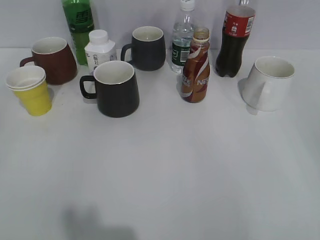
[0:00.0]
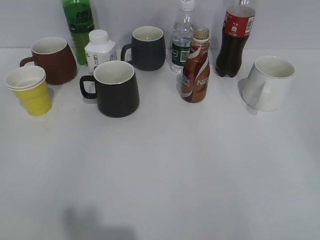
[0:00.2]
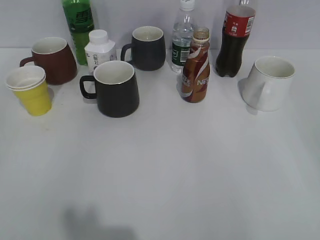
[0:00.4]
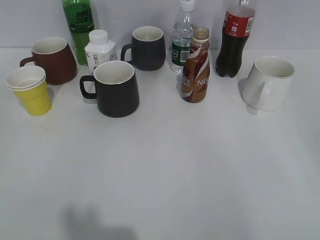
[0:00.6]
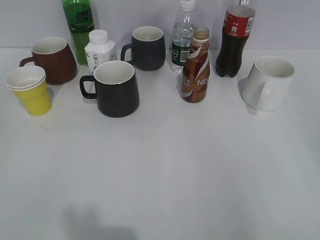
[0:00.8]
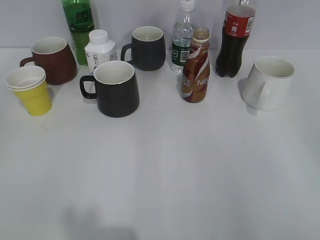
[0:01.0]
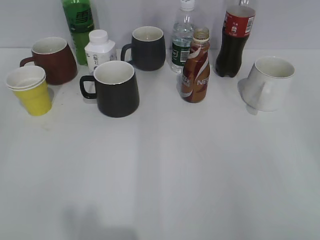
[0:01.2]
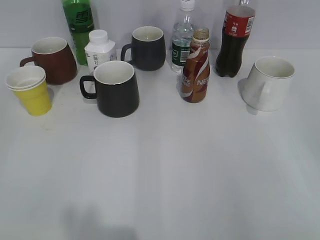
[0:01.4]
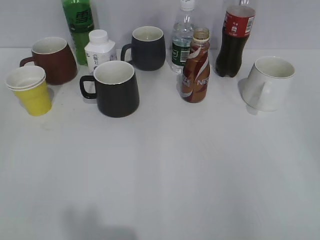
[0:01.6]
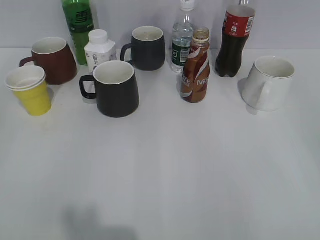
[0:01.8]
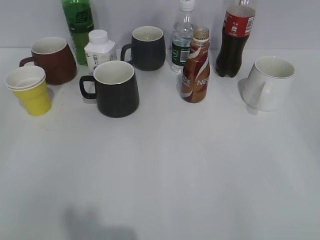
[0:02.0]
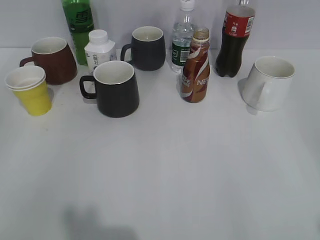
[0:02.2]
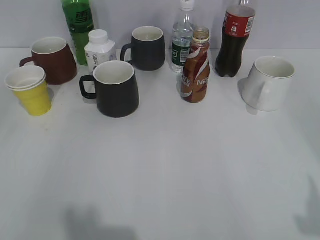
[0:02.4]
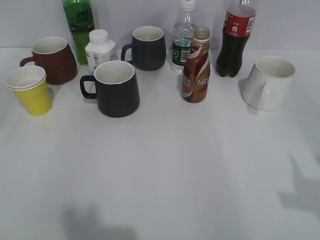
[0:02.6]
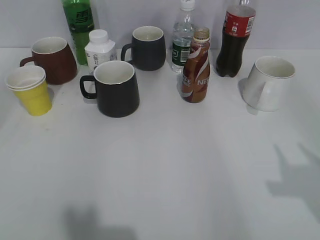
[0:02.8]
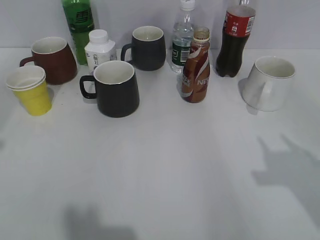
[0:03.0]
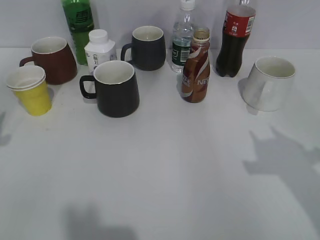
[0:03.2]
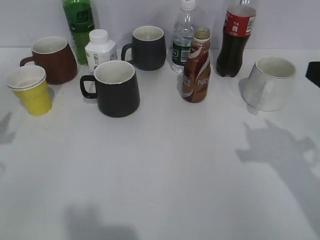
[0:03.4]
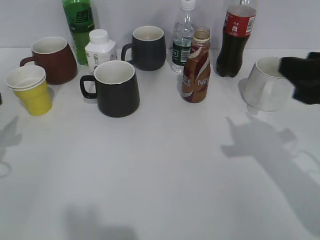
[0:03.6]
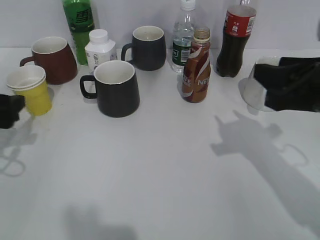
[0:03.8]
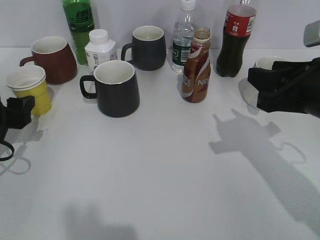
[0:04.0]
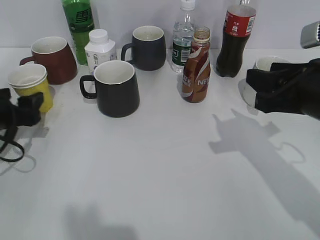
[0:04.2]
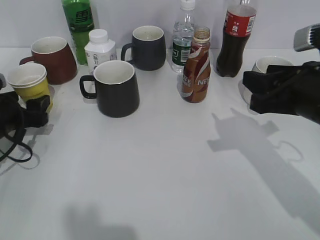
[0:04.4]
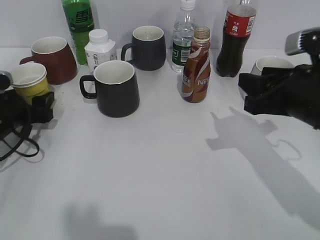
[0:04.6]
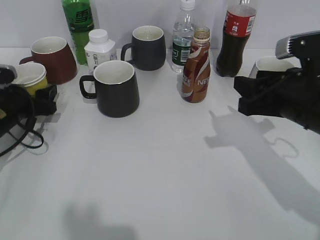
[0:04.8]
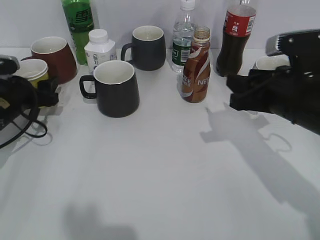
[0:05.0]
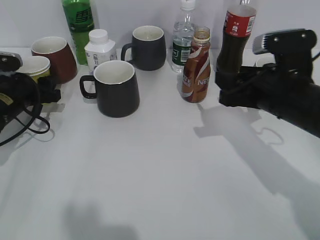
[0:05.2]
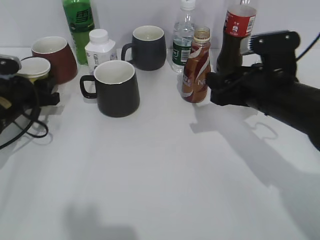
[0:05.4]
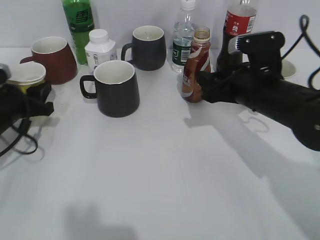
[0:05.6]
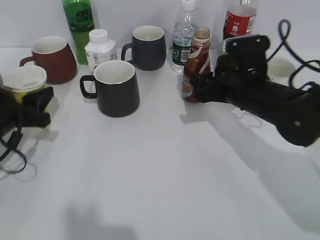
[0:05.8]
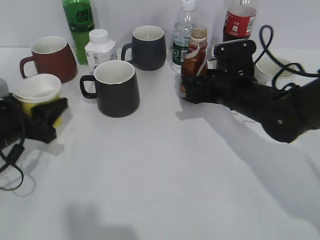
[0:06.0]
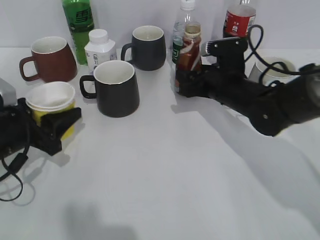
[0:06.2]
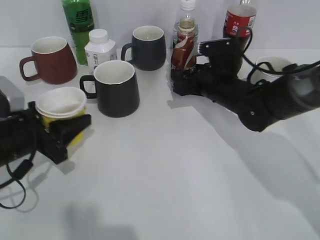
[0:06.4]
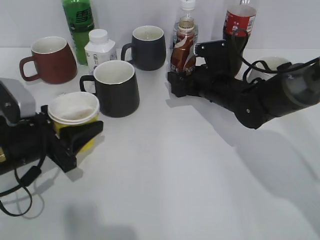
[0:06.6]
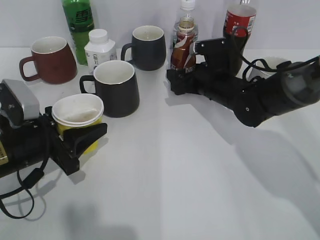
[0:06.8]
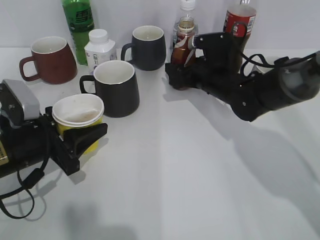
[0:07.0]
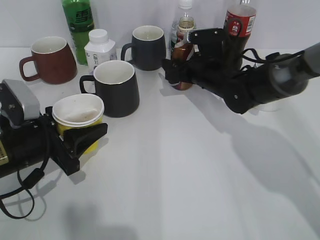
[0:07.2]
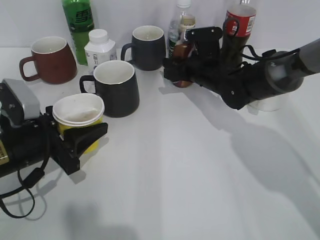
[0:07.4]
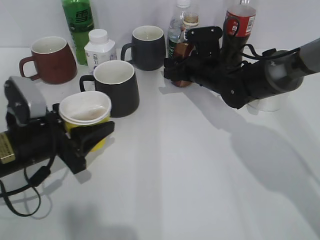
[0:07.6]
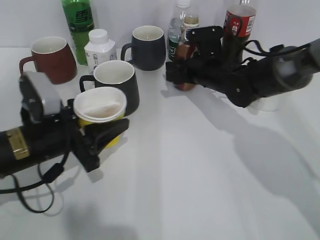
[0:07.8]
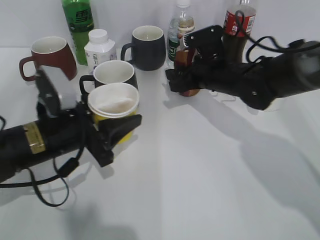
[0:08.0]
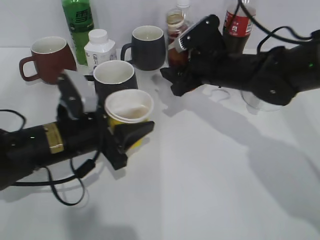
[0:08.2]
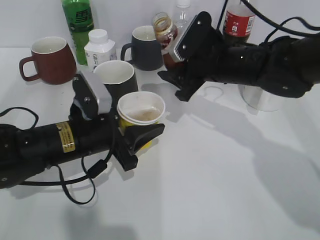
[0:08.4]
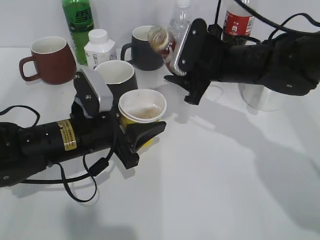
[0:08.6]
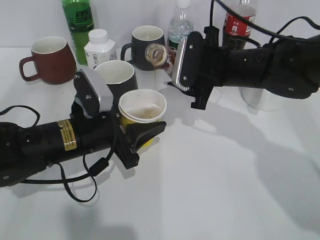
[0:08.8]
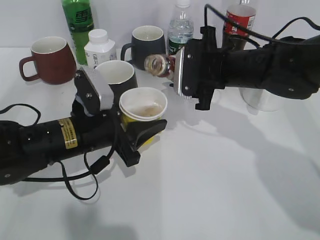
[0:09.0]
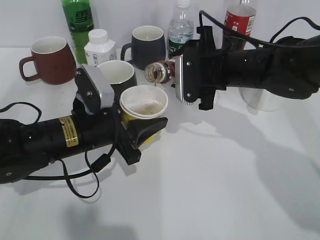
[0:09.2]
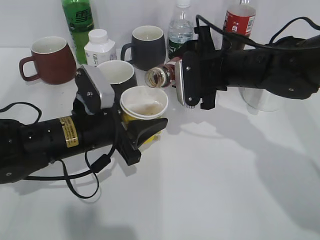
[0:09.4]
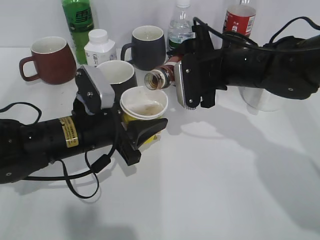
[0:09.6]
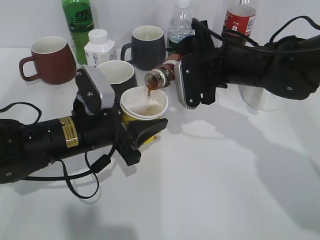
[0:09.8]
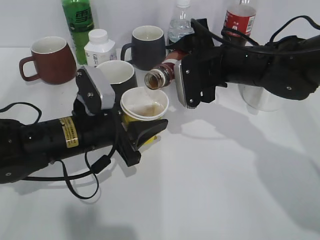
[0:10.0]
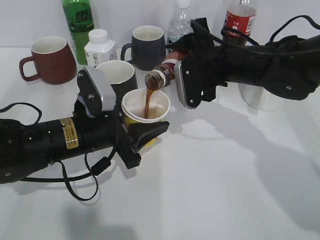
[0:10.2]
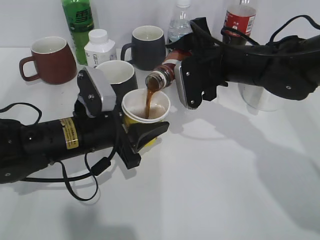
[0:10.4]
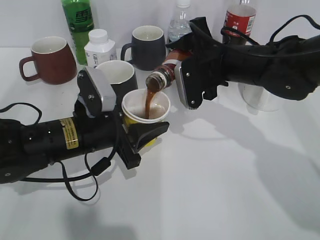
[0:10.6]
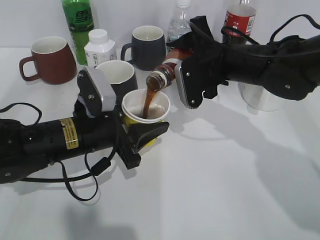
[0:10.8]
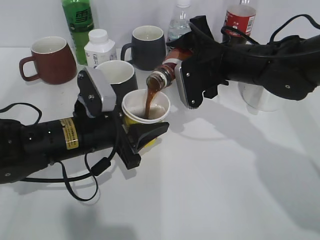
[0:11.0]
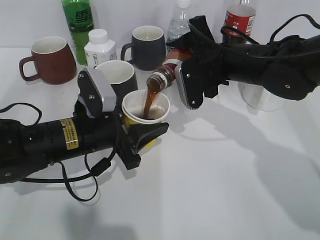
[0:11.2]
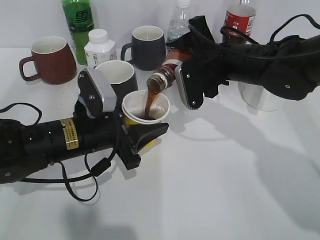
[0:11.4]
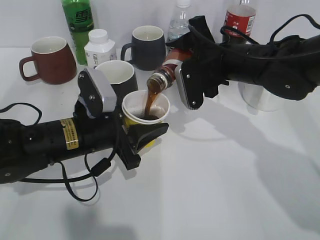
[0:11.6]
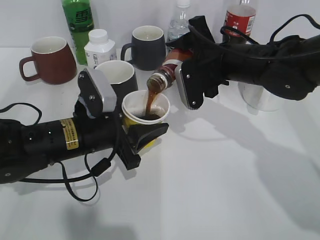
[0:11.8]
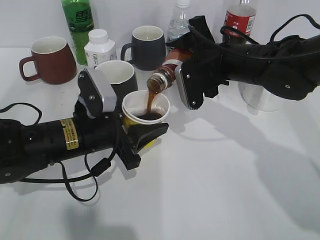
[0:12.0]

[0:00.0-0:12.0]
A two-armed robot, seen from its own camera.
Step, 0:02.0 to 0:05.0: Grasp the yellow paper cup with left gripper.
Step, 0:05.4 to 0:07.4: Grasp the bottle with coffee with right gripper.
0:01.6 to 0:03.0: Both grippers travel together forward, some 15 cm. The left gripper closes.
0:03.0 to 0:04.4: The left gripper moves downward and forward, some 20 cm, and opens up. Meanwhile the right gripper shifts about 15 cm forward, downward and to the left.
0:04.4 to 0:06.0: The left gripper goes forward and returns, roughly 5 cm each way, and closes its fingers. The right gripper is displaced forward, downward and to the left by some 15 cm, and opens up.
0:06.0 to 0:07.6: The left gripper heads to the right, covering about 5 cm. Meanwhile the right gripper goes some 10 cm forward, and opens, then closes again.
0:07.6 to 0:09.0: The left gripper shifts some 10 cm to the right. The right gripper goes roughly 10 cm backward and upward.
0:10.4 to 0:12.0: The grippers move only a little.

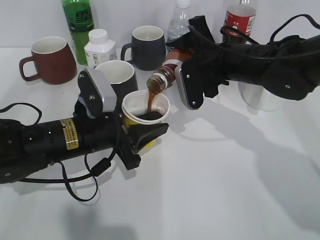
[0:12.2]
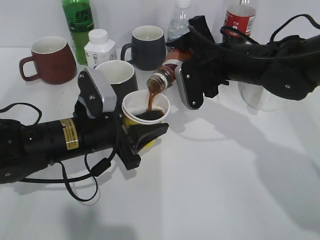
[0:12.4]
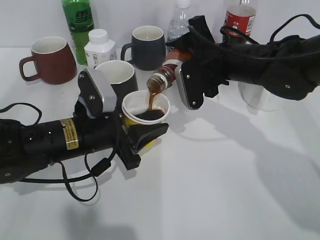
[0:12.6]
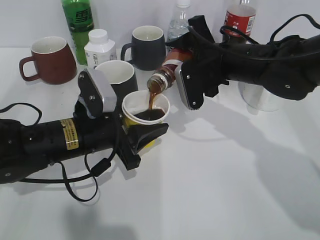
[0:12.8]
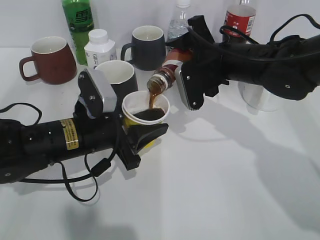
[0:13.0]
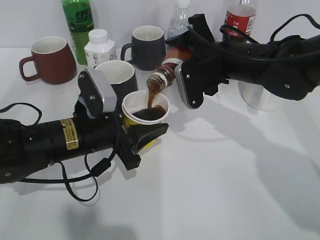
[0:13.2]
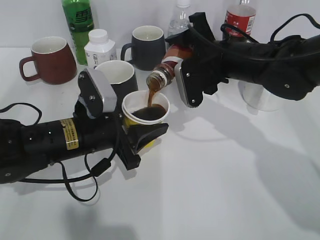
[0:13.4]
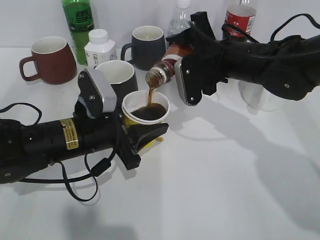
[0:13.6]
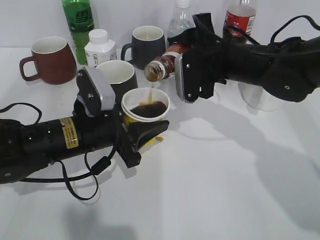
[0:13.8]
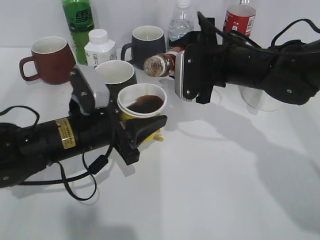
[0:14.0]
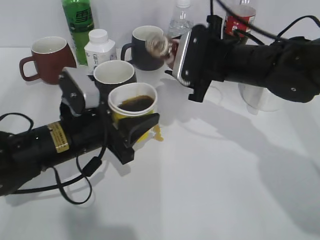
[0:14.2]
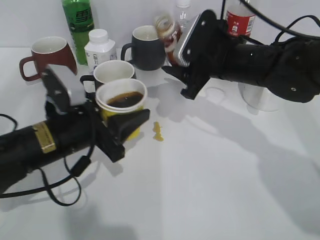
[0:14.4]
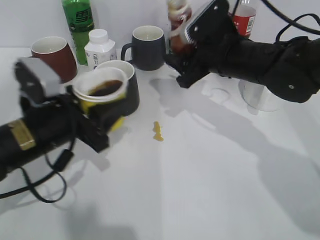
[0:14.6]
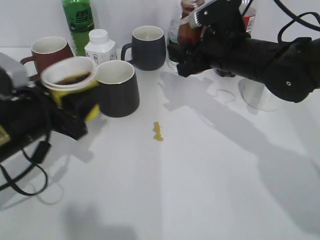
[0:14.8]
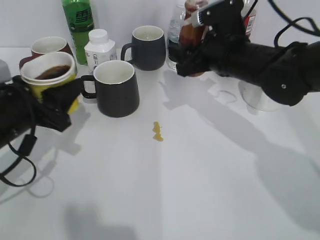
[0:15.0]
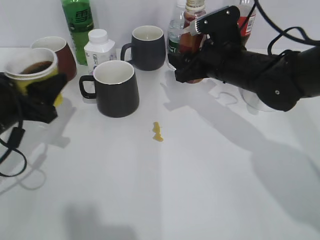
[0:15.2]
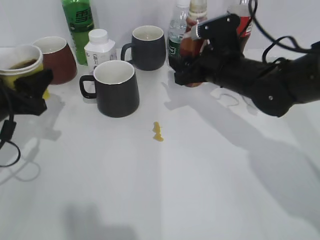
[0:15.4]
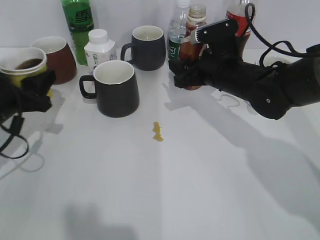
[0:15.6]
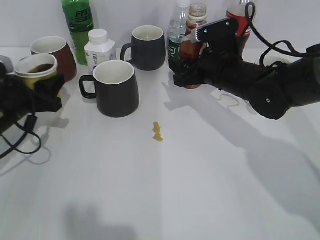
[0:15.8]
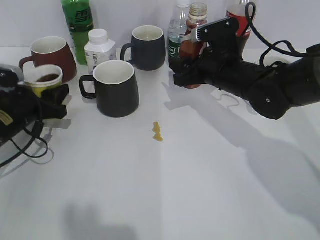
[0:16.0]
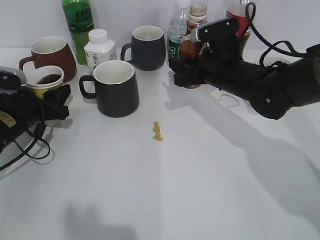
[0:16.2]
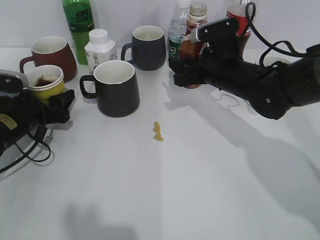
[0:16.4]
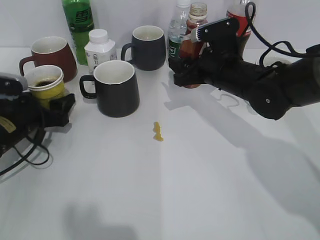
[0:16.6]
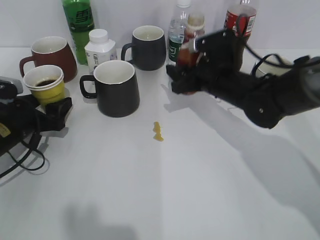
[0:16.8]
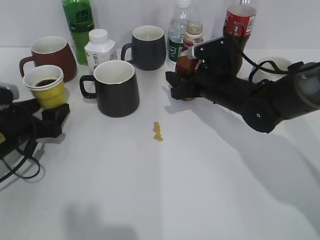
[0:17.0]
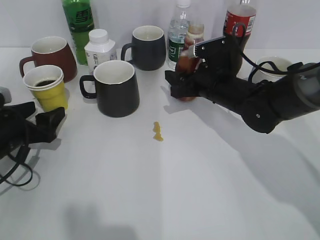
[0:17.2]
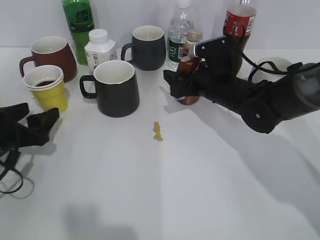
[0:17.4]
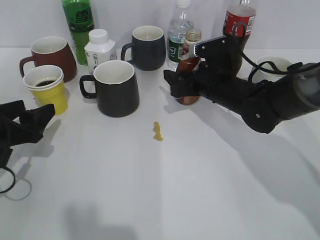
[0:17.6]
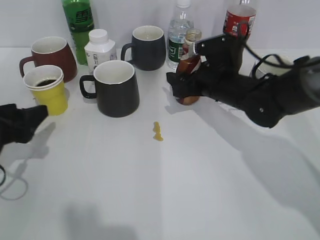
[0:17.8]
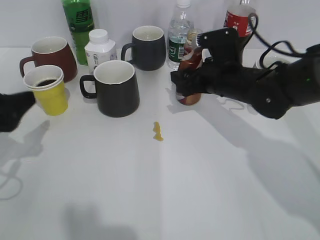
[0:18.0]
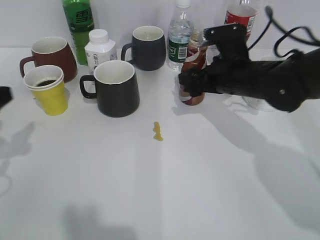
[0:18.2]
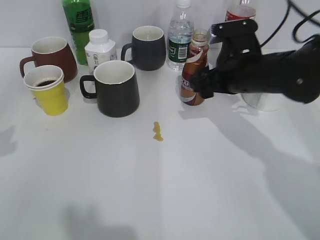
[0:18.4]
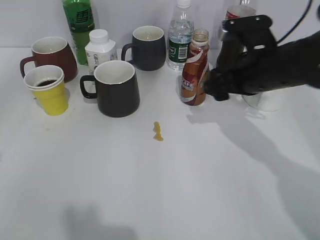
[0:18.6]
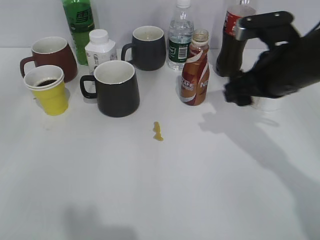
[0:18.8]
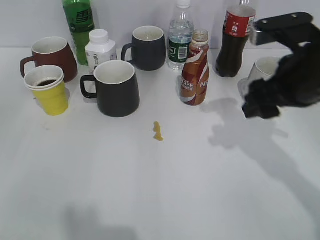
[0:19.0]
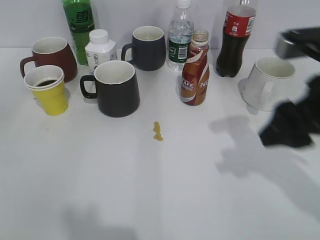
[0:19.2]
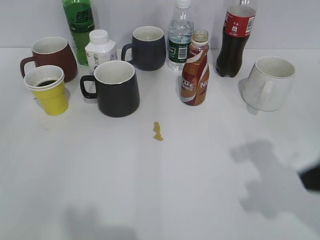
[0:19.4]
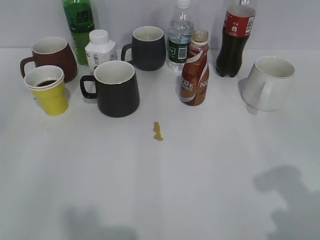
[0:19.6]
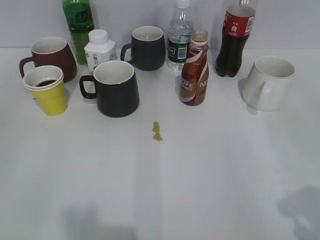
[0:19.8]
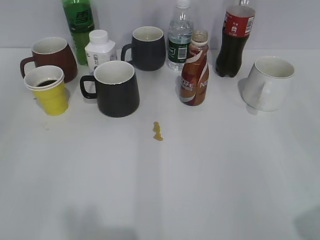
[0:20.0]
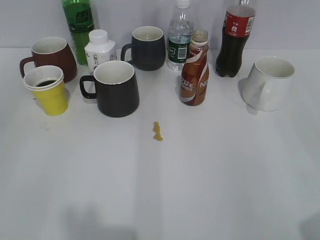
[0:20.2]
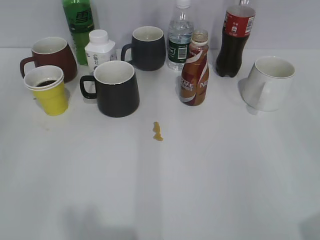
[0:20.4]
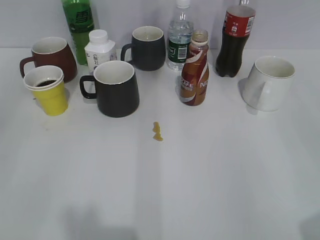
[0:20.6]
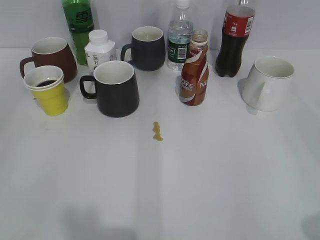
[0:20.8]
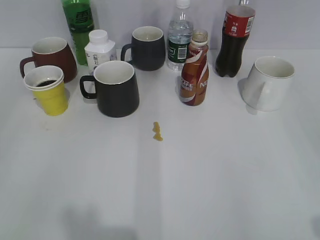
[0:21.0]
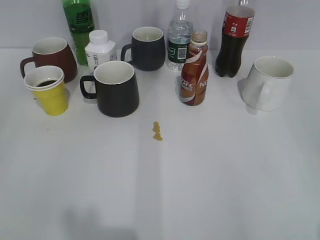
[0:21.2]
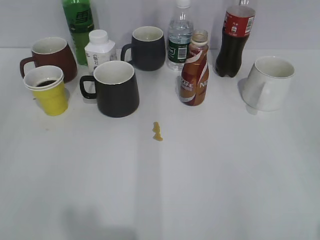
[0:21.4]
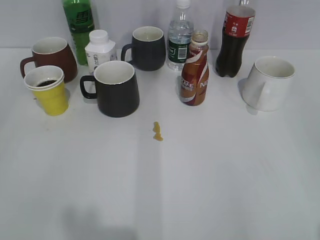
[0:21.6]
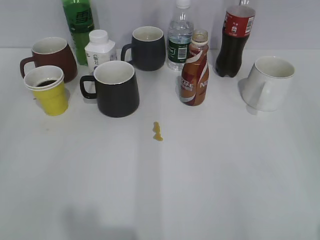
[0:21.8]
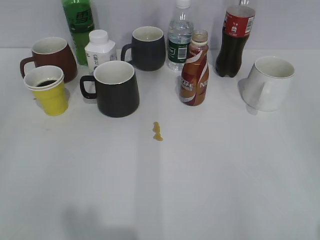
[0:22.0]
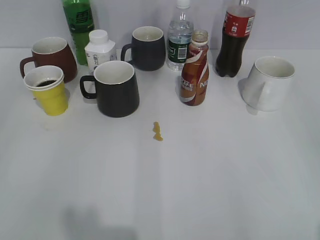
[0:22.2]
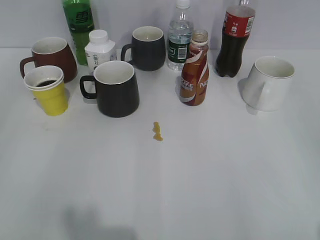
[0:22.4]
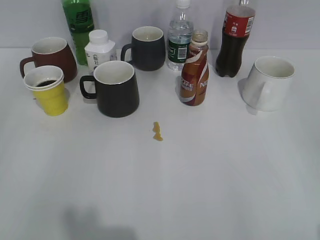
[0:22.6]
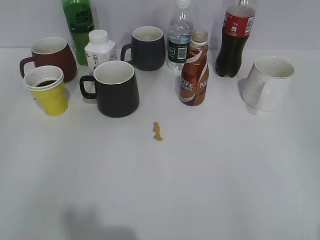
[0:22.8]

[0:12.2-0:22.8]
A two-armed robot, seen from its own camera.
Step, 0:14.2 to 0:16.6: Place the yellow paper cup on the table with left gripper.
Step, 0:16.8 to 0:18.4: Place the coffee bottle on the table with right gripper.
0:12.2 to 0:13.8: The grippers stay close to where they were, moving slightly.
0:13.8 to 0:15.2: The left gripper moves to the left, about 10 cm.
0:15.2 to 0:16.8: The left gripper is displaced downward and forward by about 10 cm, and opens up.
0:16.8 to 0:18.2: The left gripper is displaced upward and backward by about 15 cm.
0:18.2 to 0:19.8: The right gripper travels backward, to the right and upward by about 35 cm, and closes up. Meanwhile the left gripper shifts some 15 cm backward.
0:19.8 to 0:21.2: The right gripper heads backward, covering about 5 cm.
0:21.2 to 0:22.8: The two grippers keep their place.
